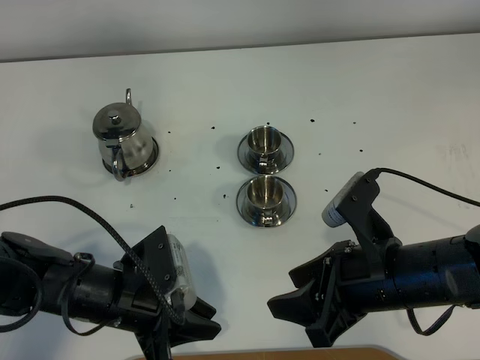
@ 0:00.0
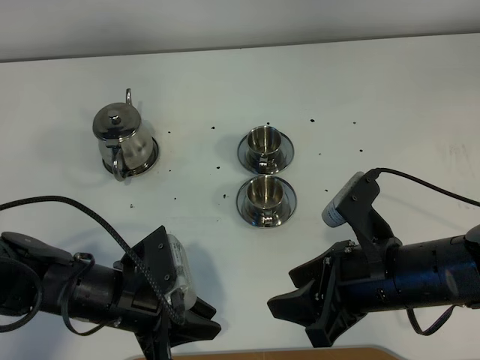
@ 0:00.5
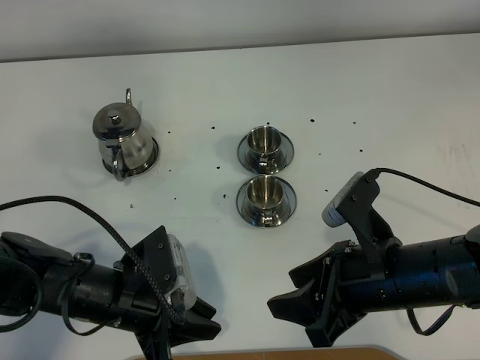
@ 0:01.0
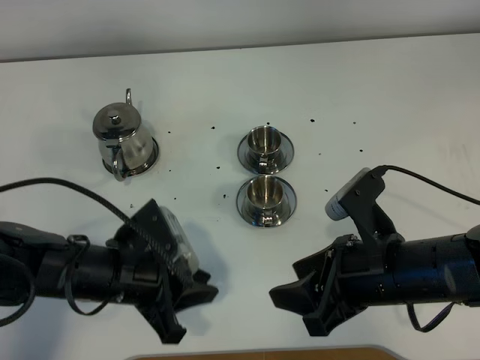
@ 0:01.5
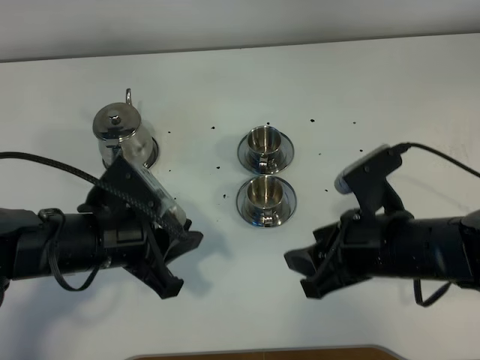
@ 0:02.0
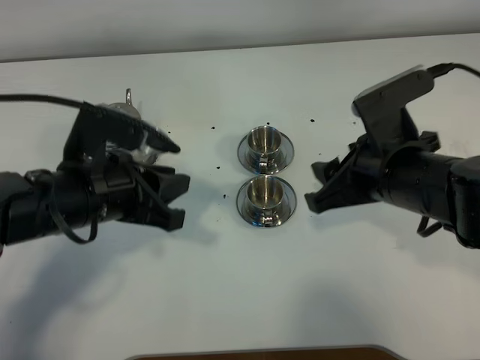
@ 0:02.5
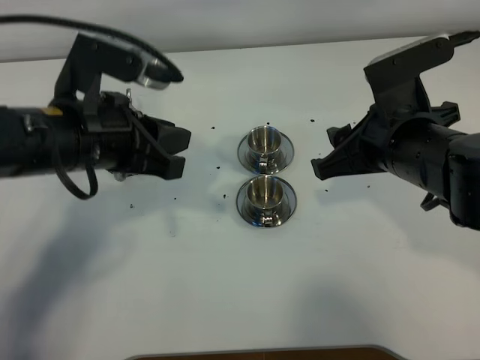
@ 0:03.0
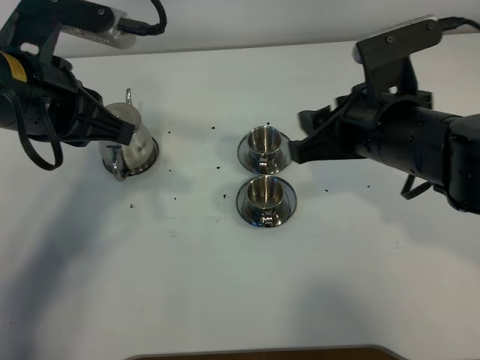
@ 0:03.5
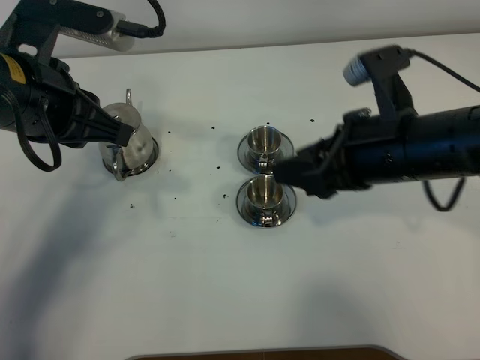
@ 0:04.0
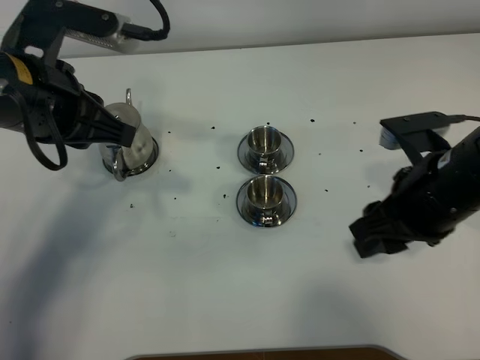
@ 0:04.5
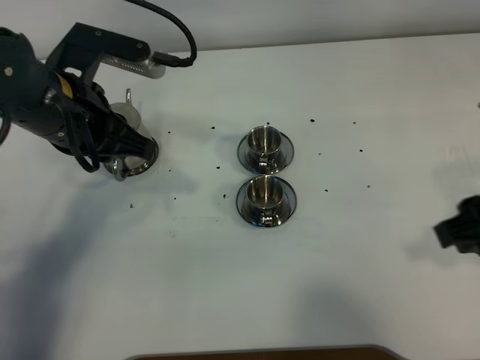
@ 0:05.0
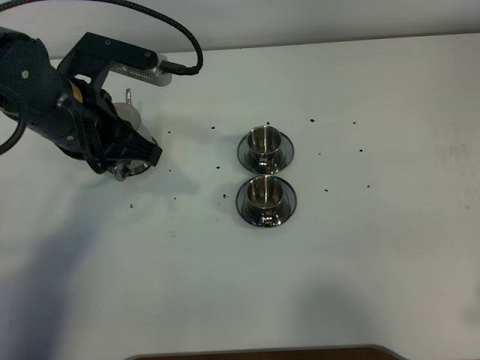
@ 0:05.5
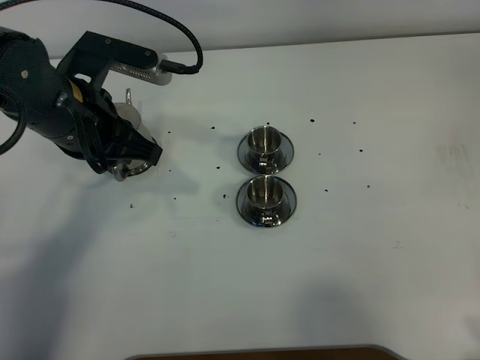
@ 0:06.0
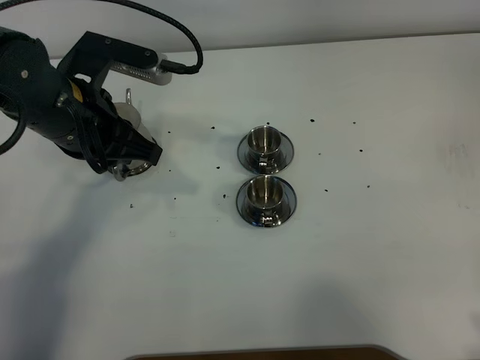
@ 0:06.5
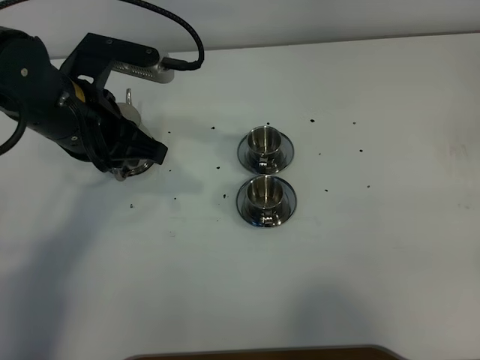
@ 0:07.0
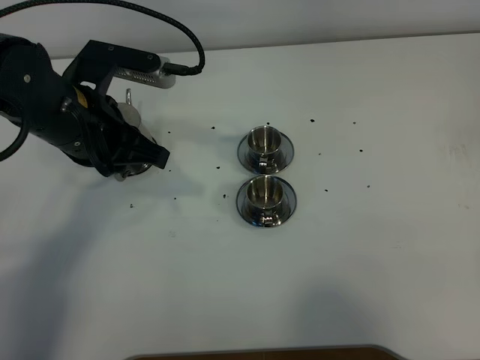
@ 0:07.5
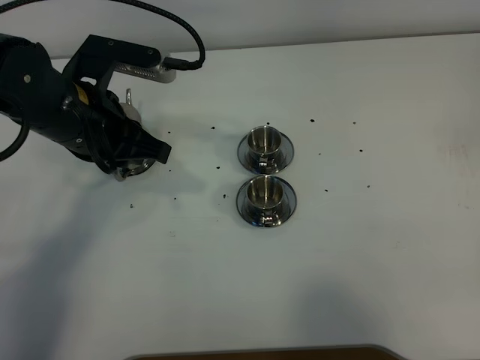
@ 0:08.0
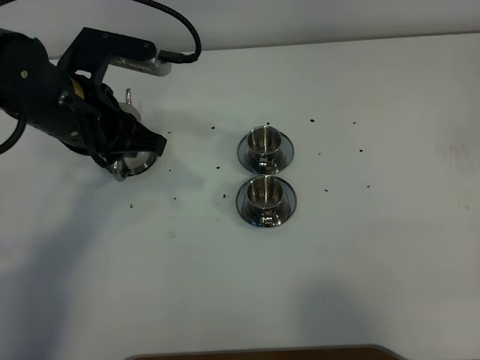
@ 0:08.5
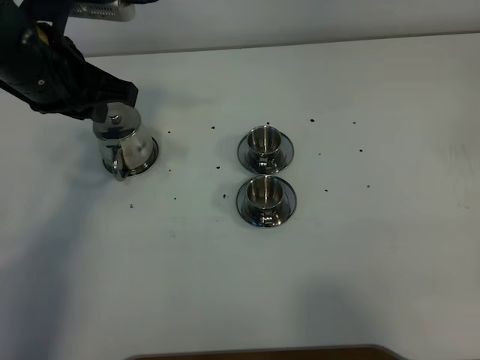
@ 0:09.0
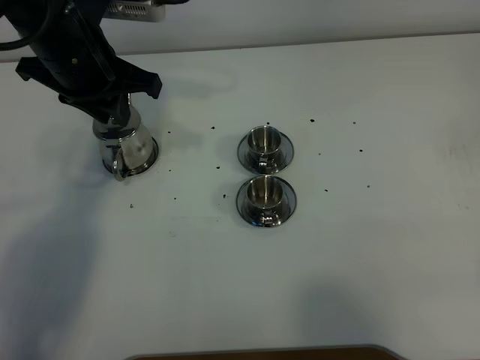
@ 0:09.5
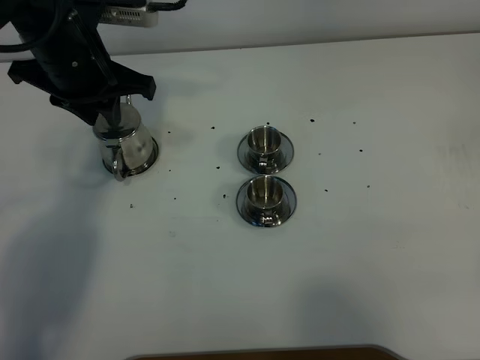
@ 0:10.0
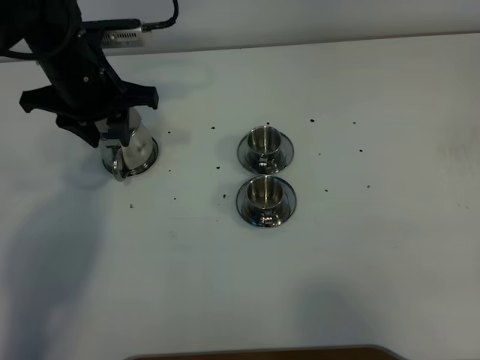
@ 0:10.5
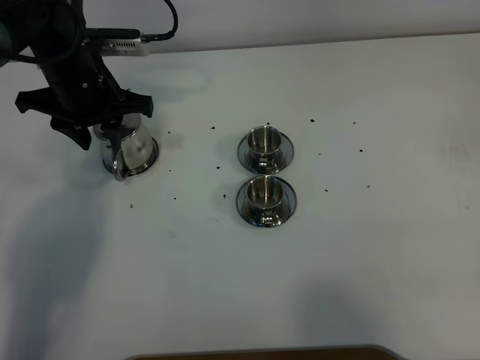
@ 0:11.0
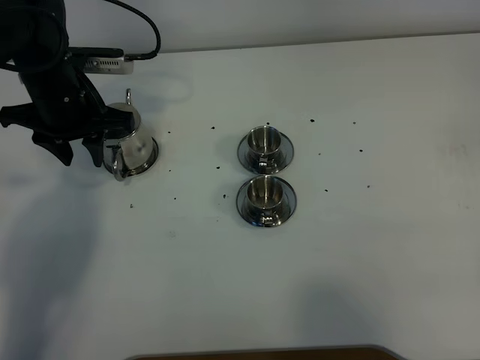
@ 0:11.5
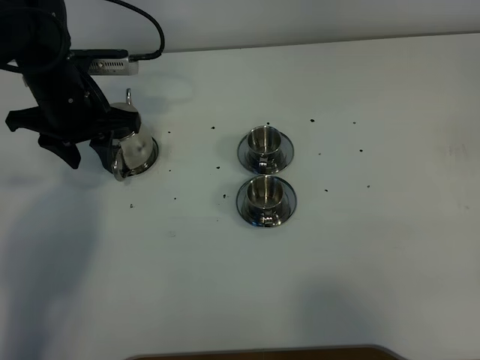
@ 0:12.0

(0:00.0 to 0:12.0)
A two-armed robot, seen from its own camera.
Task of the whole recording: grasp the stainless steel teapot and pour the tea into the two stainless steel teacups one by one, put the stainless steel teapot back in its original place.
0:00.0 - 0:02.0: The left gripper heads upward, covering some 5 cm.
0:02.0 - 0:04.0: The left gripper moves upward and forward, about 15 cm. Meanwhile the right gripper shifts roughly 10 cm upward and forward.
0:04.0 - 0:06.0: The right gripper shifts roughly 25 cm backward and to the right. Meanwhile the left gripper travels downward by about 5 cm.
0:06.0 - 0:08.0: The right gripper goes approximately 5 cm backward.
0:08.0 - 0:10.0: The left gripper is displaced forward by approximately 10 cm.
0:10.0 - 0:12.0: The left gripper shifts approximately 5 cm downward, and opens its fingers.

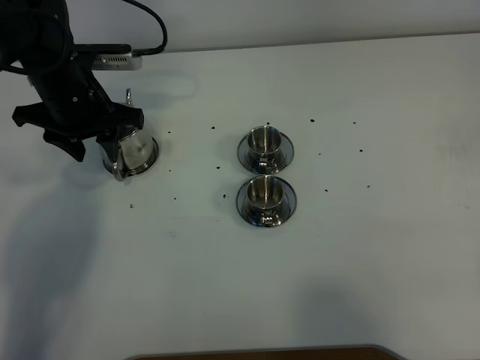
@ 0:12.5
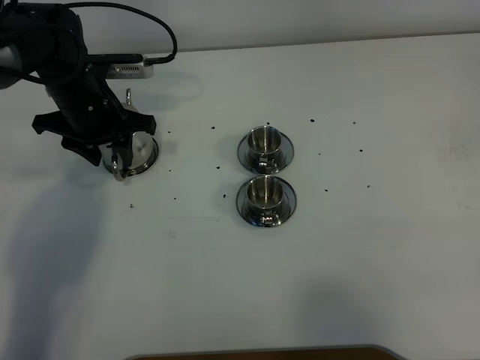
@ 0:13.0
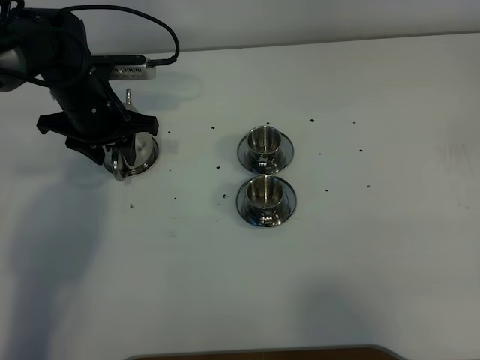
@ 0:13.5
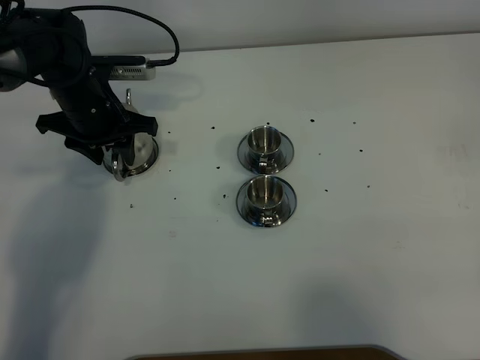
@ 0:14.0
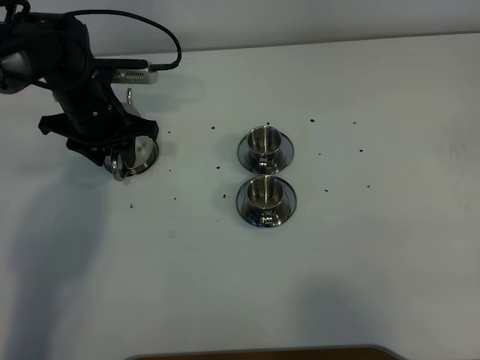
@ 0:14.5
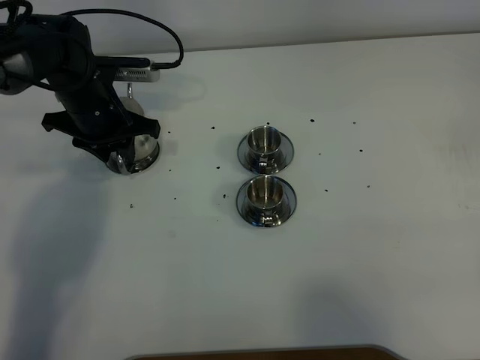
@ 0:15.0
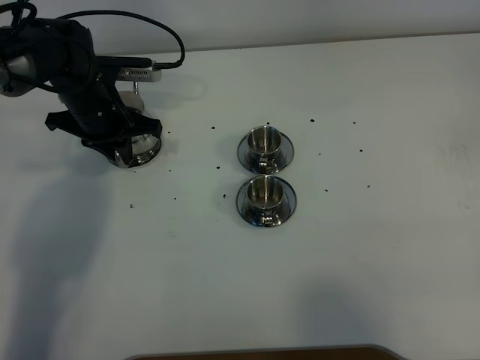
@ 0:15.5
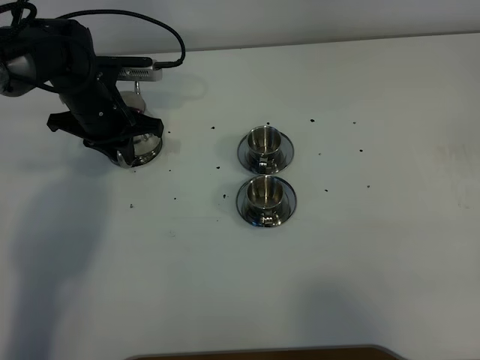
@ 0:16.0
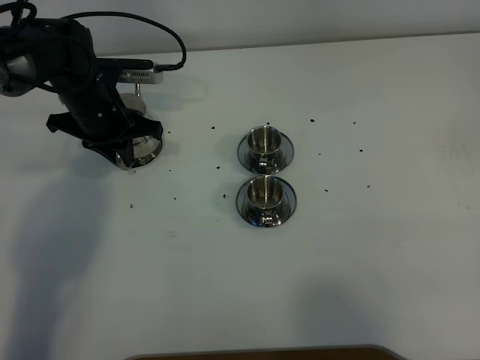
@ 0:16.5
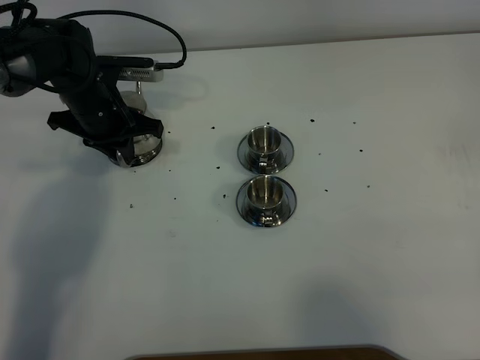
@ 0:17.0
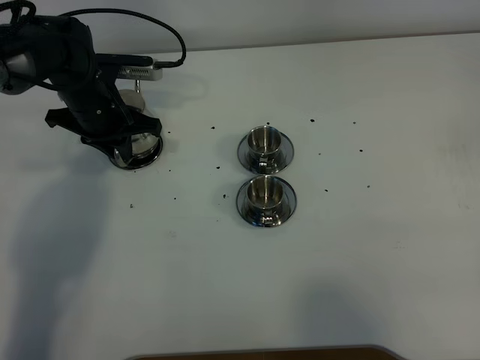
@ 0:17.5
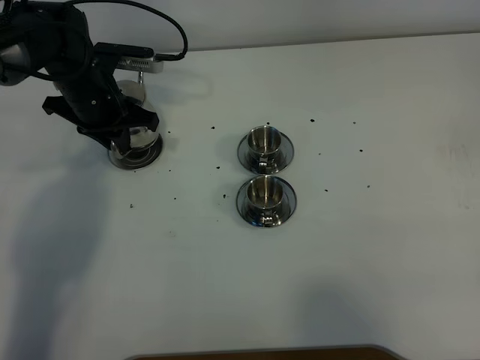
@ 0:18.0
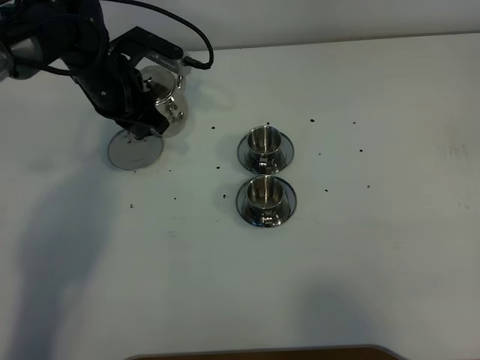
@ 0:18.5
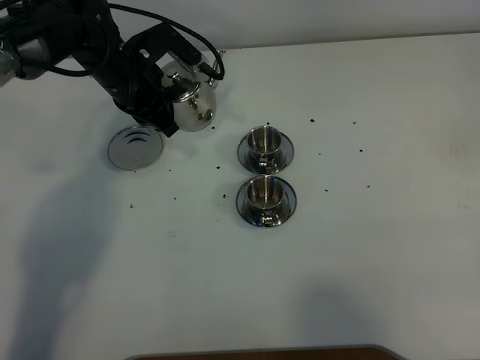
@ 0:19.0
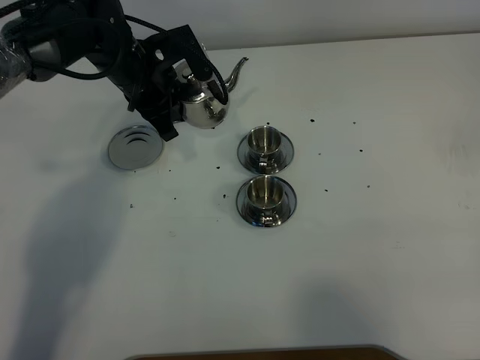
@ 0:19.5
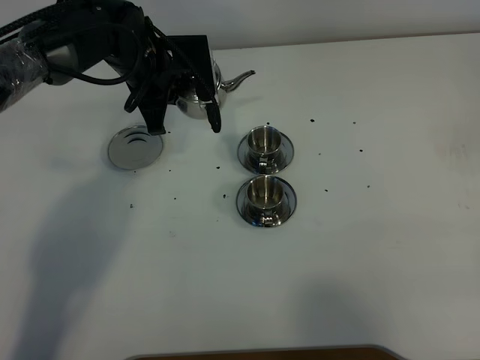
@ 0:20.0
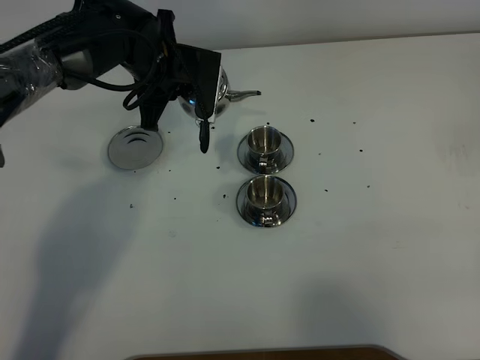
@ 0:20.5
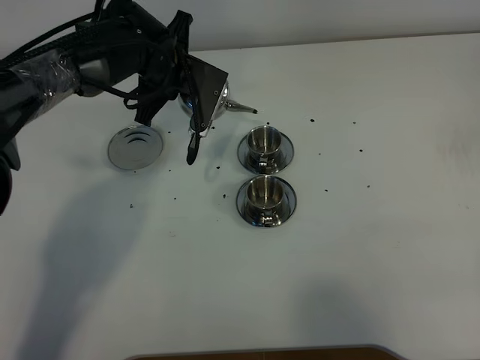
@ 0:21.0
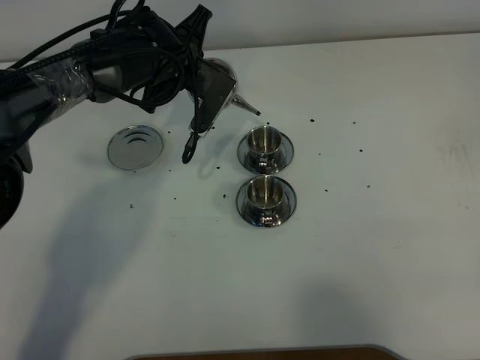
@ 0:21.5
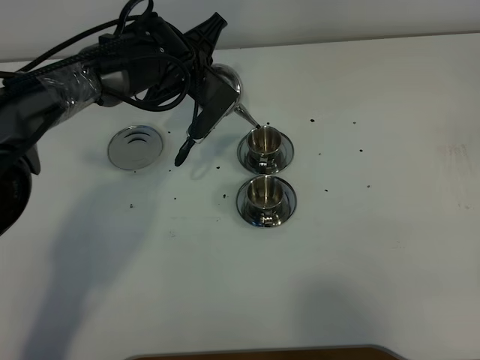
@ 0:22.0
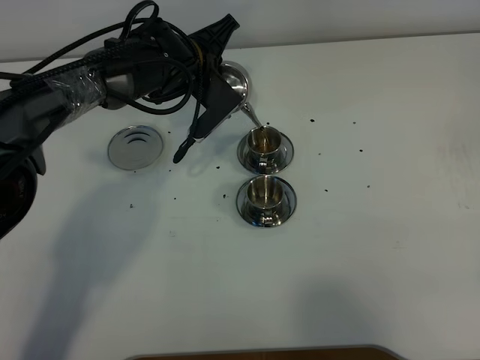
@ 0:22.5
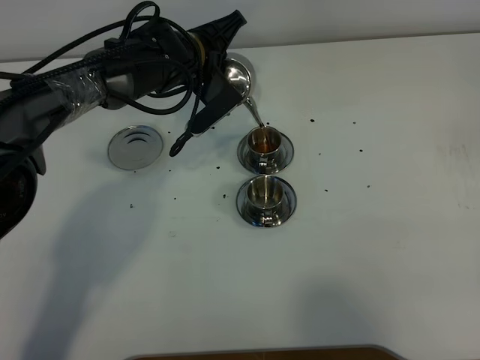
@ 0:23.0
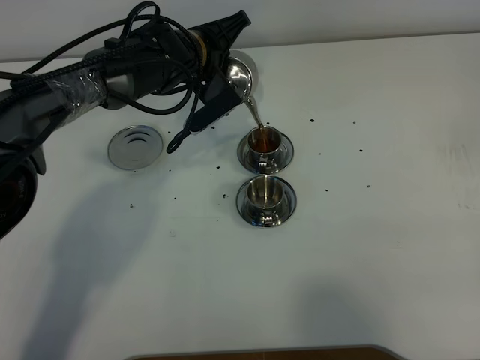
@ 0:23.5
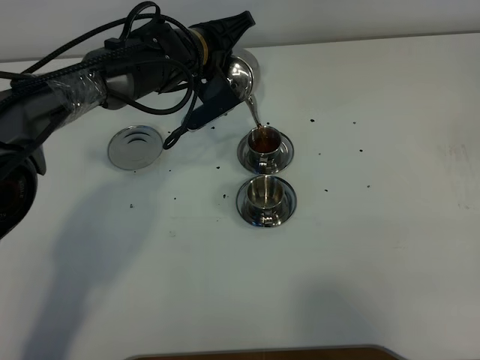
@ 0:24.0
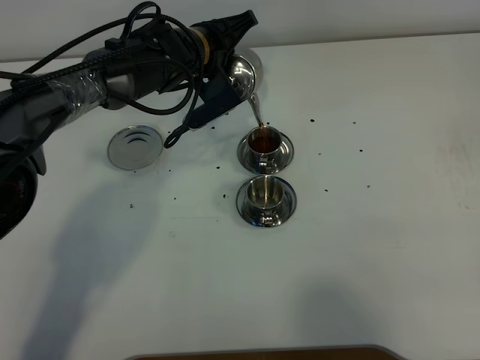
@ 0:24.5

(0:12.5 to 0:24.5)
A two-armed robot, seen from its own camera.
Task of the whole recording: grasp the stainless steel teapot and pour the tea into the two stainless steel teacups one by one, put the stainless steel teapot back in its original place.
Step, 0:12.5 - 0:17.5: Pick up the teapot with the left gripper.
0:12.5 - 0:14.5: There are only small adjustments of the grippers.
0:14.5 - 0:16.5: The left gripper closes.
0:18.5 - 0:20.5: The left gripper shifts roughly 5 cm to the right.
0:22.5 - 0:24.5: The grippers move only a little.

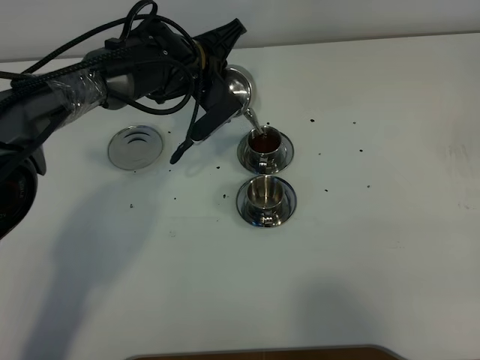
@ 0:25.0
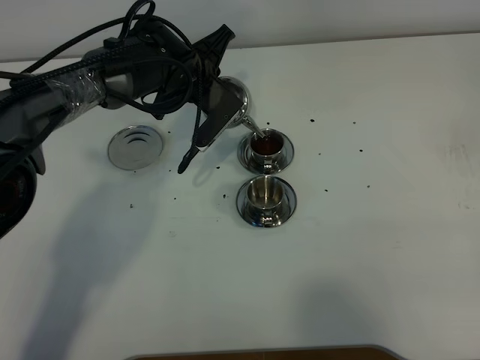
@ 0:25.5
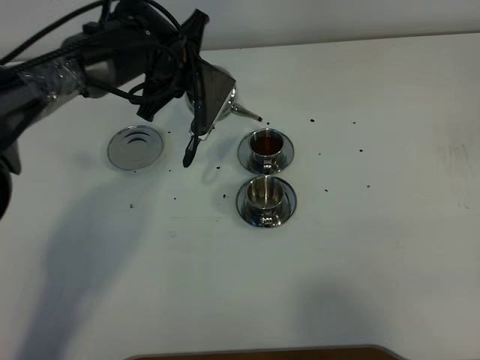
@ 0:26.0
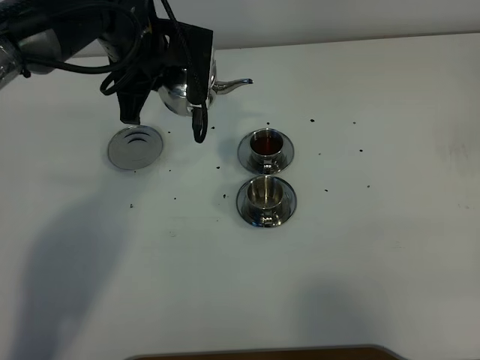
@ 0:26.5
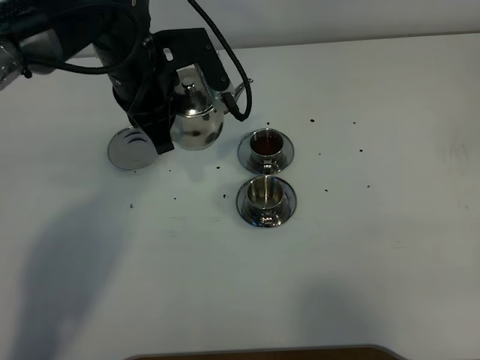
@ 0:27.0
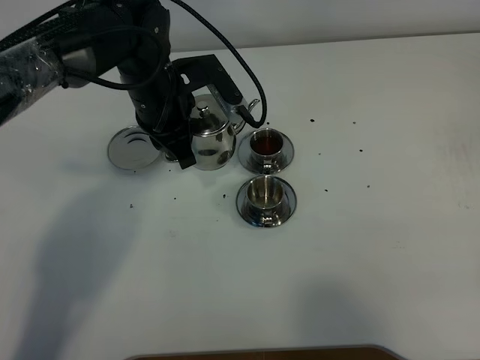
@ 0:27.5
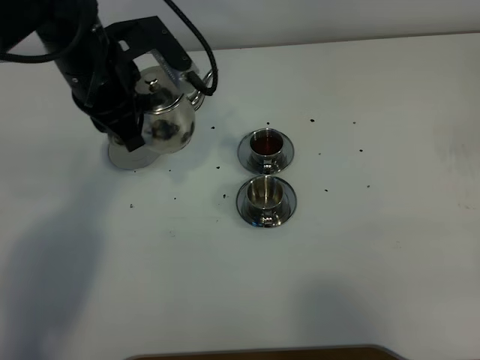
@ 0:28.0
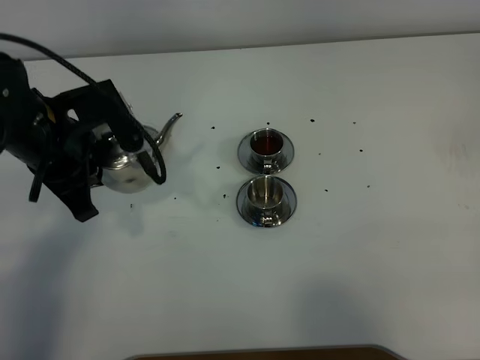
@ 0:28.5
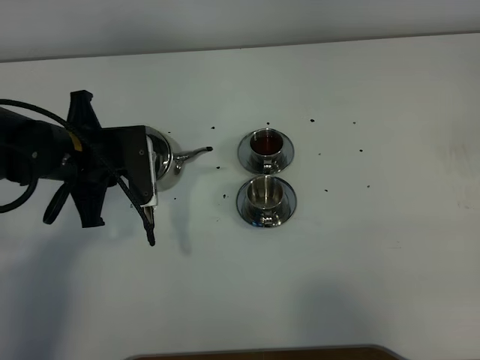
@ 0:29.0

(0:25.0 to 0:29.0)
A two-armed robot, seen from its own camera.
Task of the whole recording: grasp the stainless steel teapot and pour the tea into the two stainless steel teacups one by one, put the stainless steel teapot back in its original place.
0:25.0 - 0:27.0: The left gripper travels backward and upward by roughly 10 cm.
0:27.0 - 0:29.0: The left gripper shifts roughly 15 cm to the left, backward and downward.
